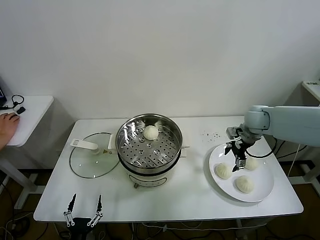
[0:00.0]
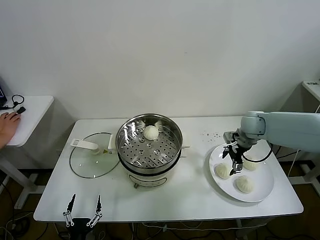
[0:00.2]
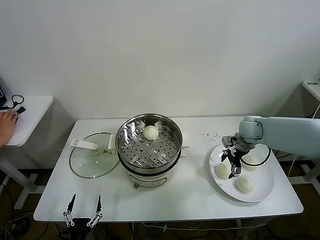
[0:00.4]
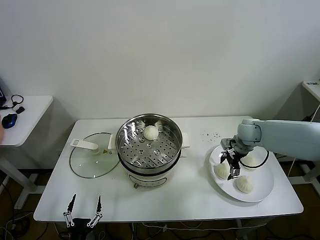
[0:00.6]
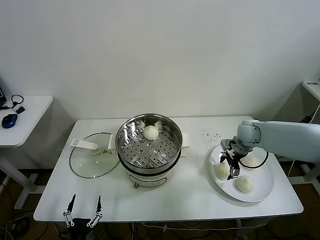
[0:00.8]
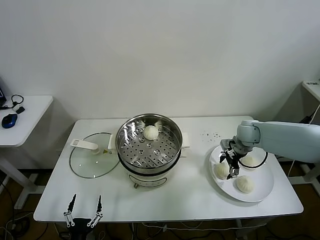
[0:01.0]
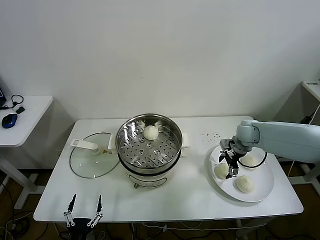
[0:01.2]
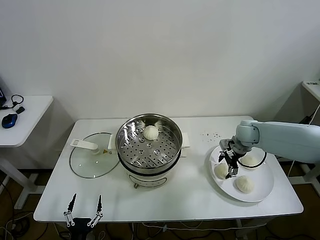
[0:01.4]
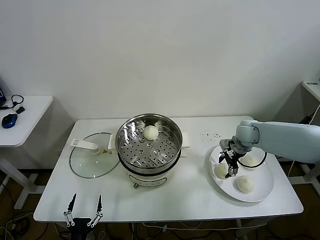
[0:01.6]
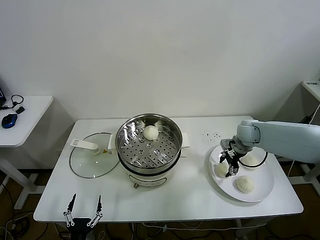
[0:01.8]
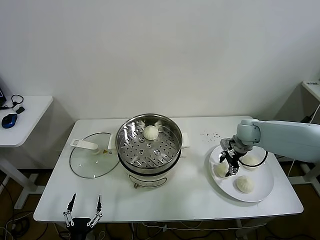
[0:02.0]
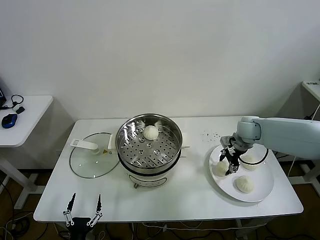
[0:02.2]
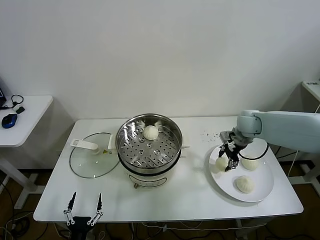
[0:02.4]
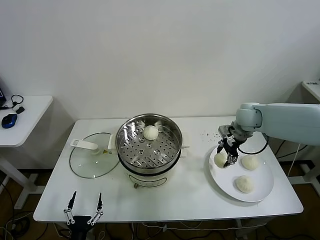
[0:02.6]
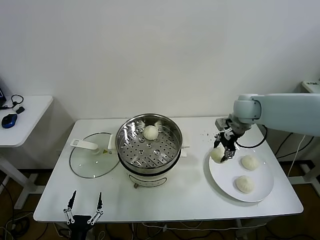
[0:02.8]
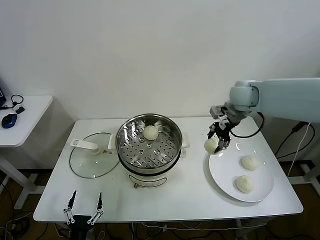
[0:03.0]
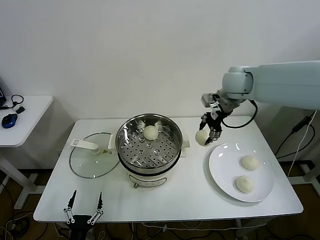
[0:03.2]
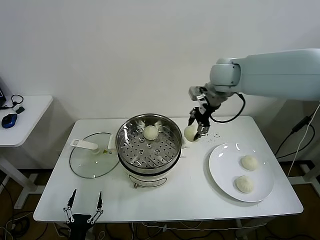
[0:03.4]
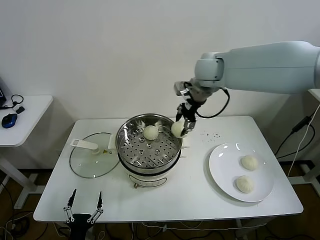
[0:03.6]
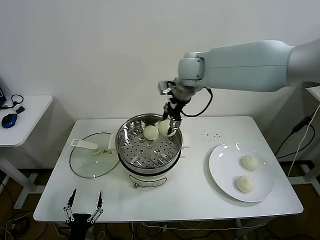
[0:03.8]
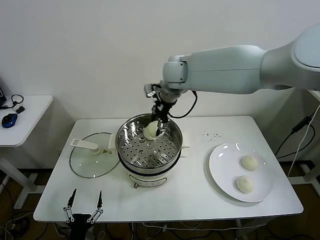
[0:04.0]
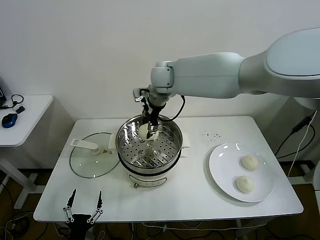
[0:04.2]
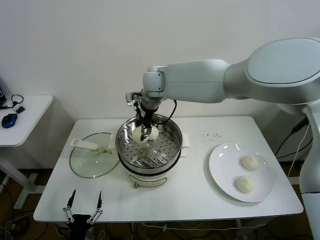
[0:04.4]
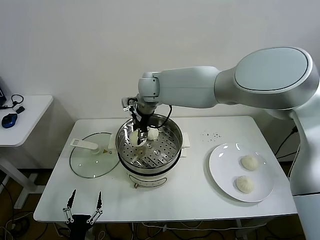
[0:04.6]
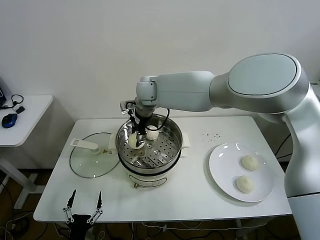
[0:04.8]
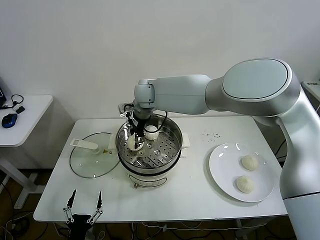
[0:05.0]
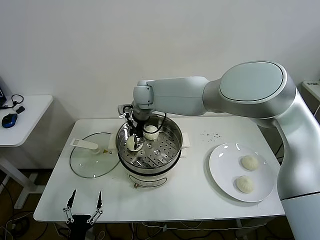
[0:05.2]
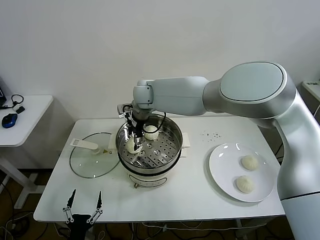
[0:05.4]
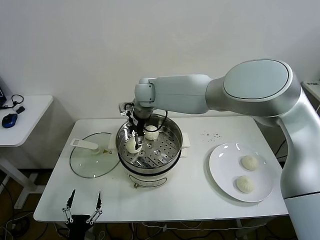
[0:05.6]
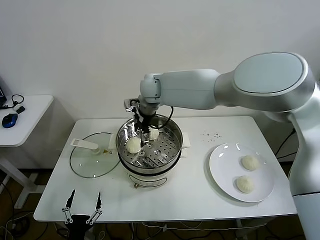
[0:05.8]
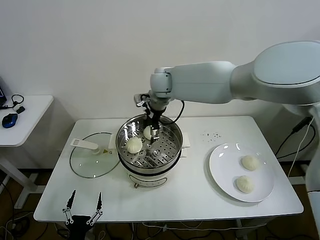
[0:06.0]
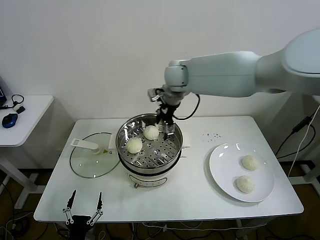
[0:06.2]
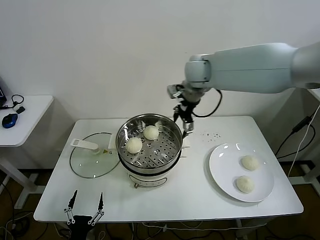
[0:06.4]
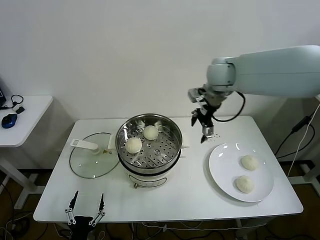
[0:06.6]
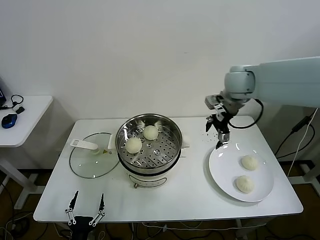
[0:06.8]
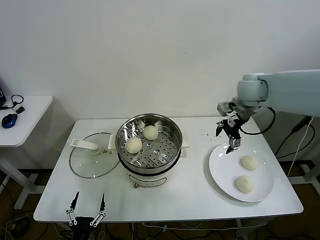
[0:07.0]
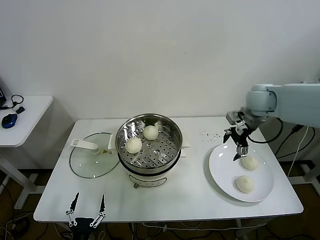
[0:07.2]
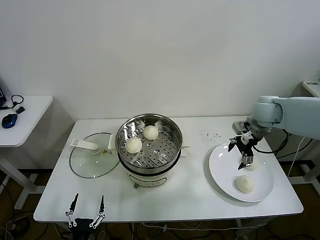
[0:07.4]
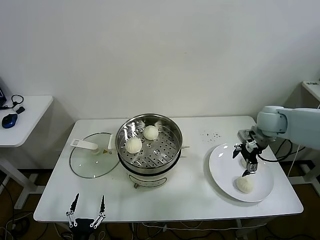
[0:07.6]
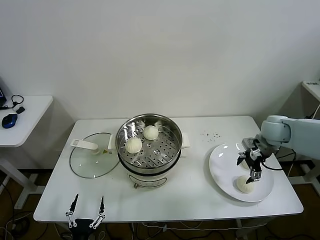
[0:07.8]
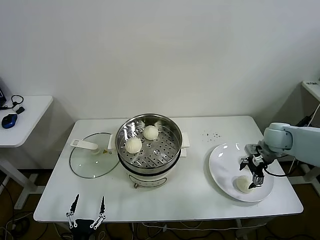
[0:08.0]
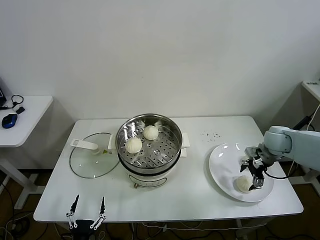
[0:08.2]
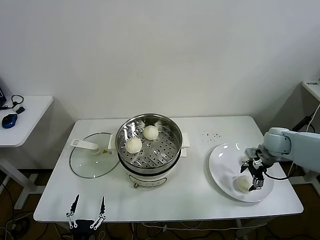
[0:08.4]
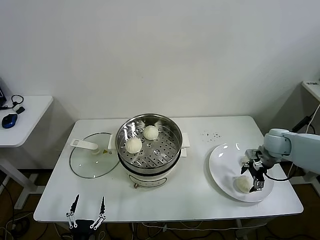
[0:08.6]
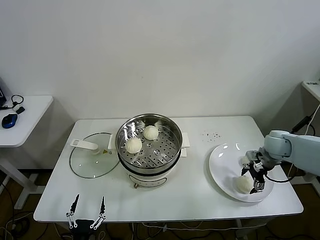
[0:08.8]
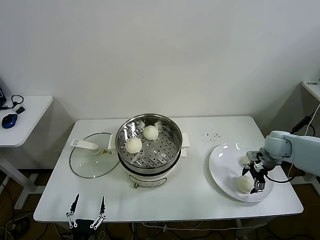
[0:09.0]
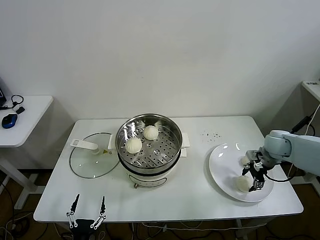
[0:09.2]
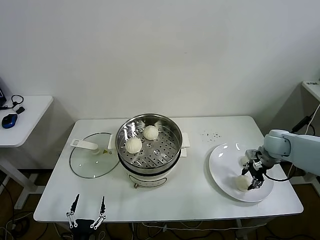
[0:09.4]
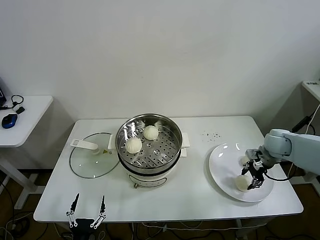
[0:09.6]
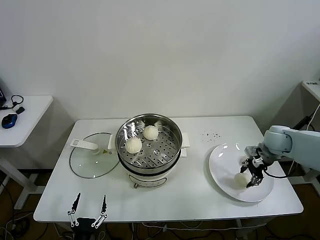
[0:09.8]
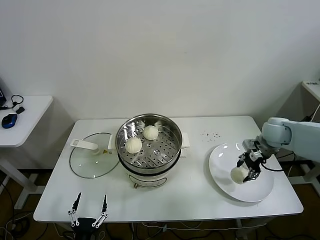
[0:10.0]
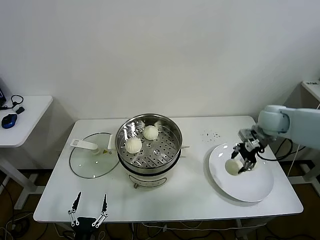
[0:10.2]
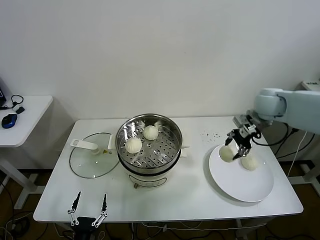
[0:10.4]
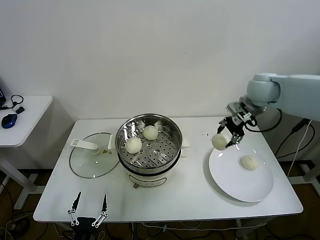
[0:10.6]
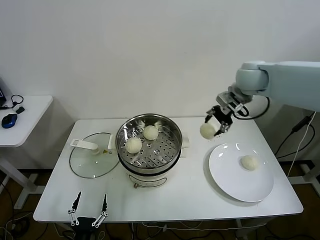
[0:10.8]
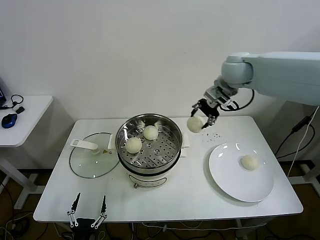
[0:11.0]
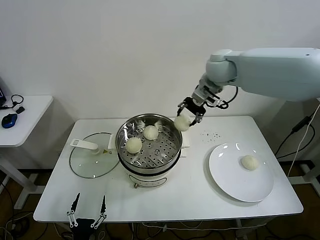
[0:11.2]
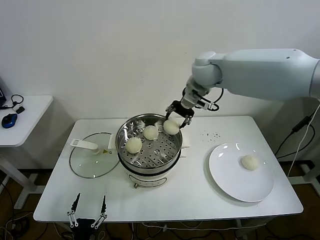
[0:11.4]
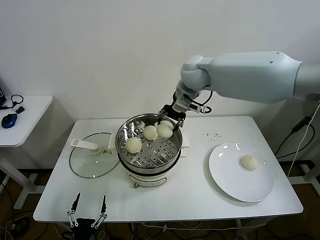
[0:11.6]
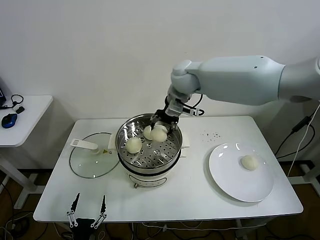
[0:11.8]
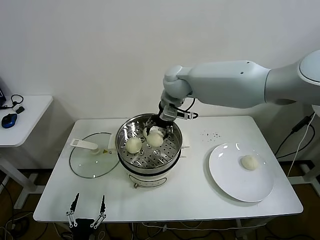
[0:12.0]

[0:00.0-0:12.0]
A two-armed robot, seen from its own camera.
Task of the whole recording: take steamed baozi put them in steamer.
Step, 0:02.0 to 0:05.6: Place the baozi on the steamer with right gripper.
Step, 0:05.8 to 0:09.2: Grasp the baozi in the plate with right gripper.
0:00.0 to 0:01.6: The right gripper heads downward, covering approximately 5 cm.
0:01.6 to 0:03.0: The right gripper shifts roughly 15 cm upward, and closes.
0:03.0 to 0:04.4: The right gripper heads to the left, covering about 30 cm.
0:04.4 to 0:06.0: The right gripper opens.
0:06.0 to 0:07.6: The right gripper shifts roughly 35 cm to the right.
0:07.6 to 0:09.0: The right gripper travels downward and to the right by approximately 10 cm.
0:09.0 to 0:10.4: The right gripper travels upward and to the left by roughly 15 cm, and closes its fingers.
0:10.4 to 0:12.0: The right gripper goes roughly 30 cm to the left.

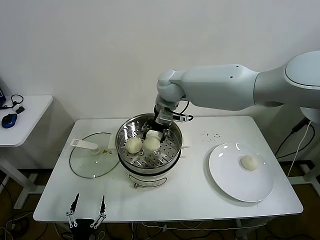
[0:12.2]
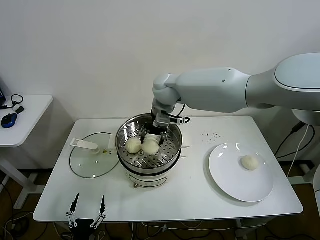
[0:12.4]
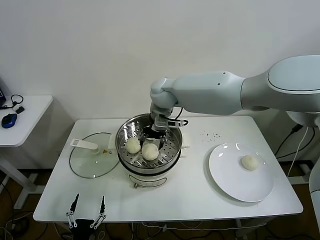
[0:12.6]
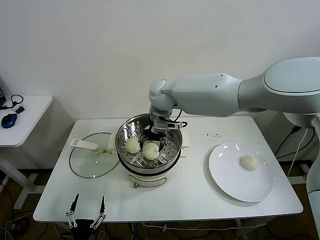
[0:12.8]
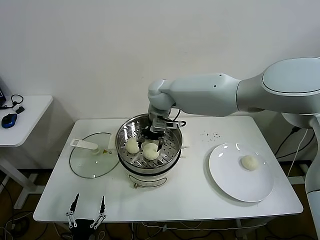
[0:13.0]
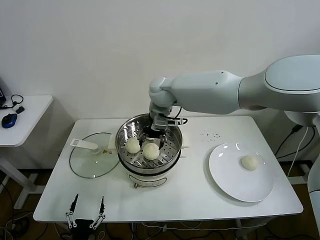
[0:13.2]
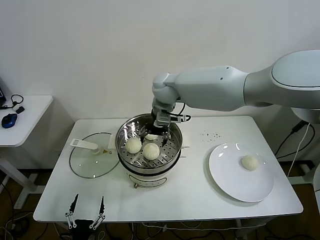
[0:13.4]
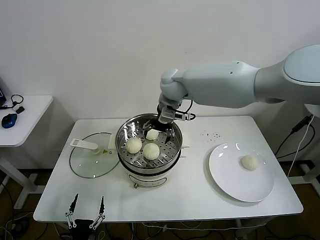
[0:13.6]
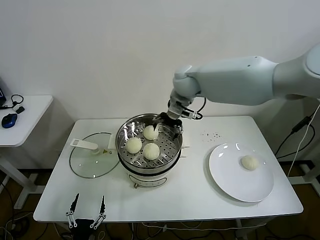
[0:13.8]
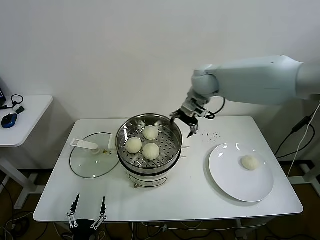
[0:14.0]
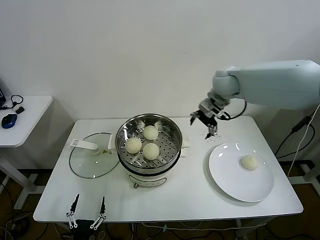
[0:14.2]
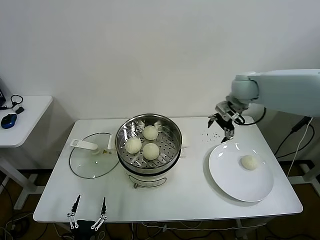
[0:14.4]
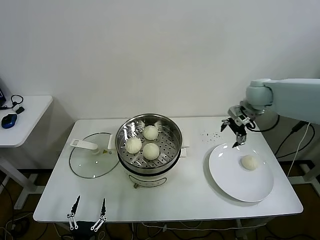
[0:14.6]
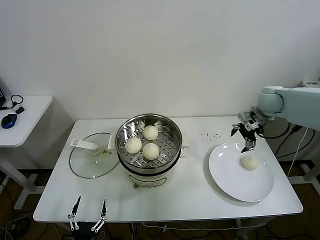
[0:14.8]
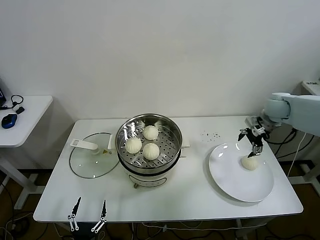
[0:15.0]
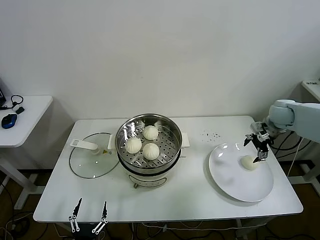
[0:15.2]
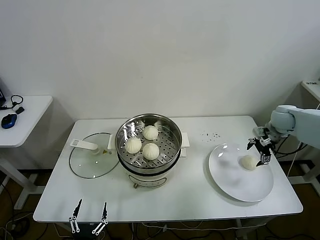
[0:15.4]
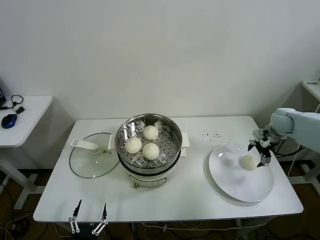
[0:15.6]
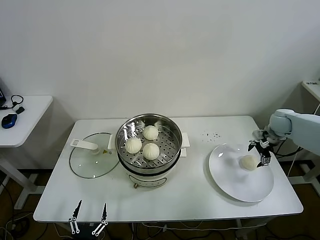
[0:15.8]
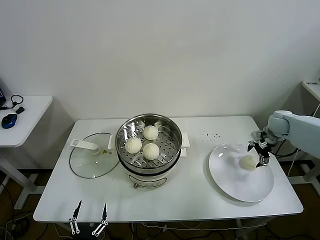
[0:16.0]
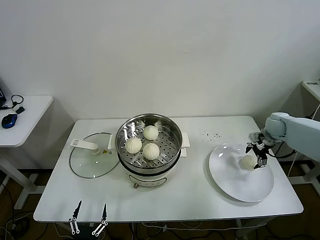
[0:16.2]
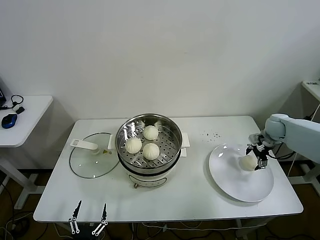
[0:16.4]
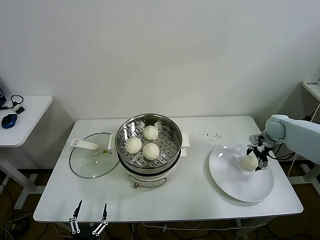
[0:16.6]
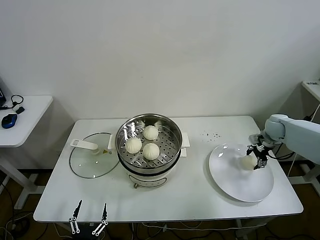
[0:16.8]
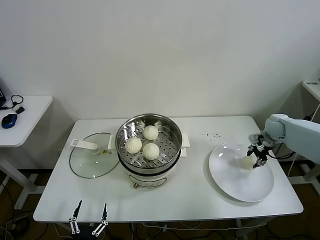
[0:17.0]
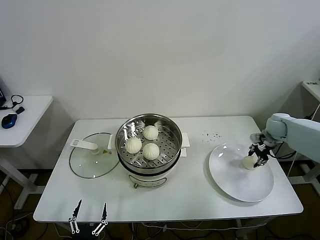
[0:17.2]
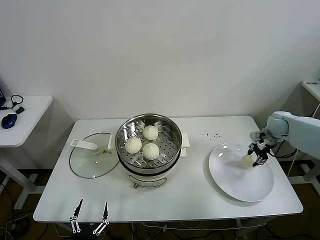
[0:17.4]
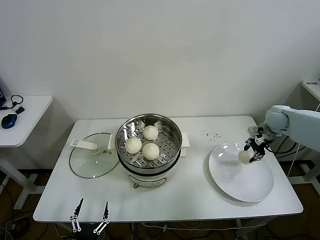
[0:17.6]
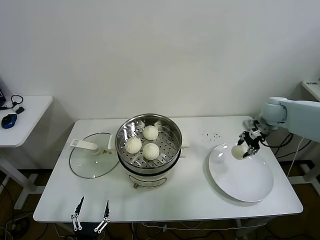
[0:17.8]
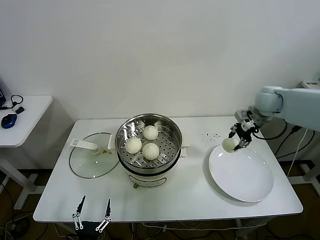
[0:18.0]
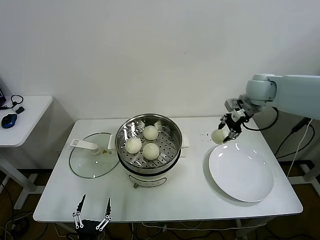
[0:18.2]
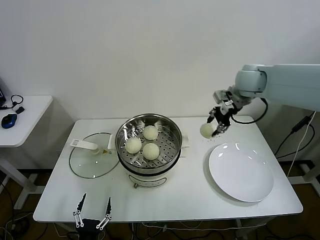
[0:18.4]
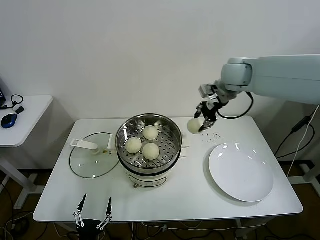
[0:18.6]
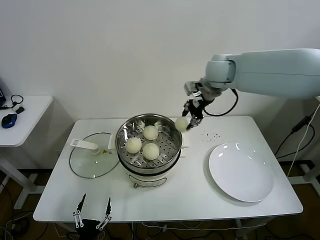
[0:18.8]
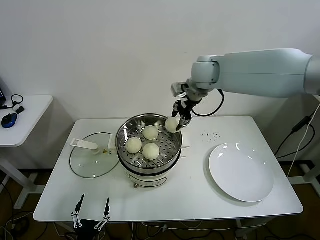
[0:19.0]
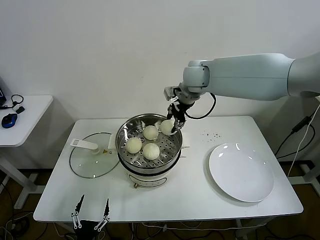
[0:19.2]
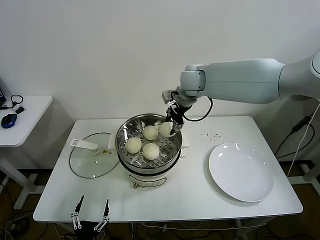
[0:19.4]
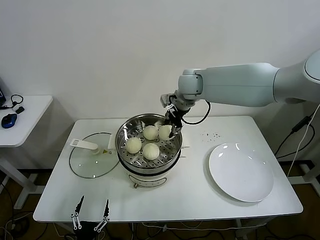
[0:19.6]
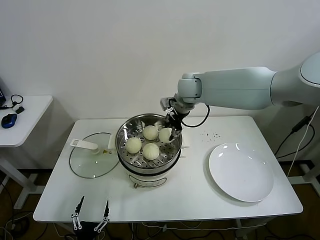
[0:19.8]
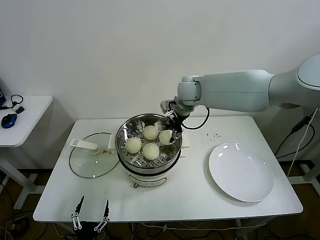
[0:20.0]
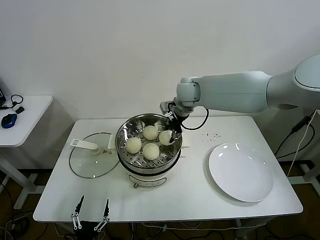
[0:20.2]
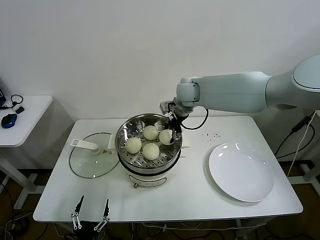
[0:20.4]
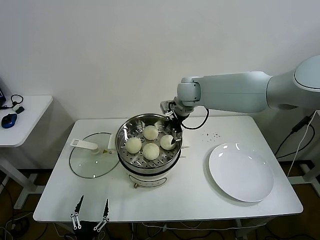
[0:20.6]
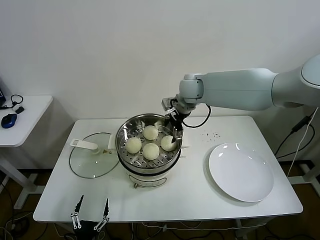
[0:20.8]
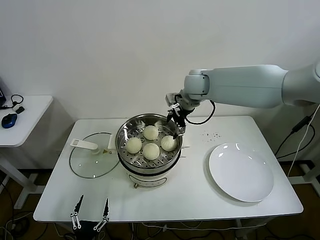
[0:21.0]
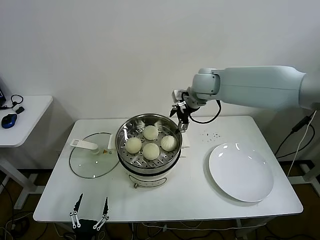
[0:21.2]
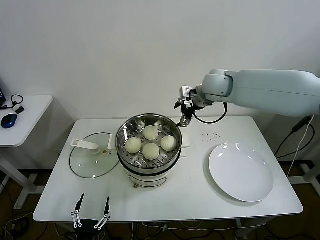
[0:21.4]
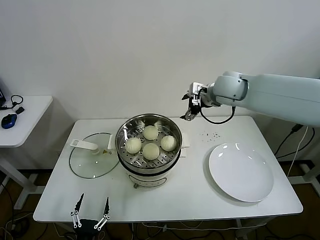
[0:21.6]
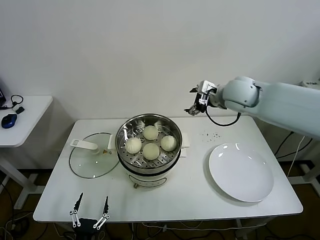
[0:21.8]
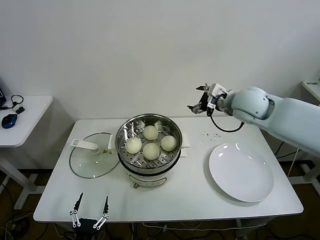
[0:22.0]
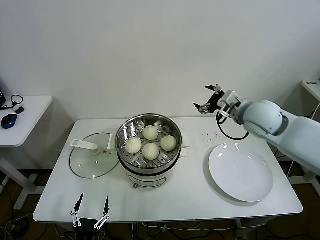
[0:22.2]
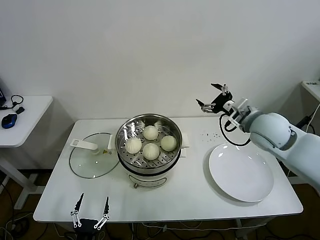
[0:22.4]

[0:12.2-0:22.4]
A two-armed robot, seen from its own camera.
Task of the whole recording: take steamed baozi put them in steamer.
Step, 0:13.0 to 0:17.0: Grasp the baozi in the plate with right gripper.
Step, 0:17.2 to 0:20.8: Place the baozi on the steamer with right gripper.
0:12.2 to 0:13.6: The right gripper opens up.
0:13.6 to 0:15.2: The right gripper shifts roughly 40 cm to the right.
0:15.2 to 0:16.6: The right gripper shifts some 10 cm downward.
0:16.6 to 0:18.0: The right gripper moves upward and to the left, roughly 15 cm, and closes.
0:18.0 to 0:19.4: The right gripper heads to the left, covering some 25 cm.
0:19.4 to 0:21.0: The right gripper opens.
0:21.0 to 0:22.4: The right gripper is displaced to the right and backward by roughly 25 cm.
